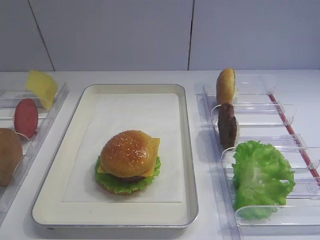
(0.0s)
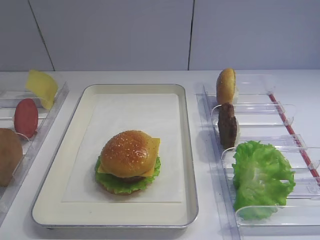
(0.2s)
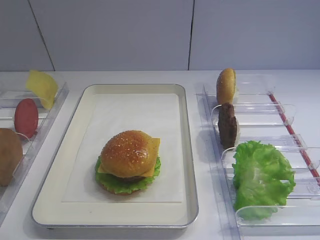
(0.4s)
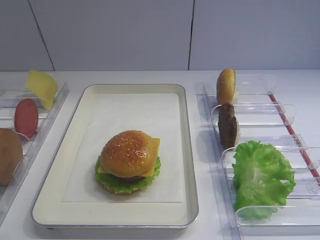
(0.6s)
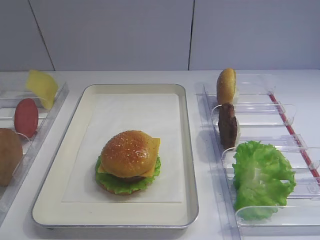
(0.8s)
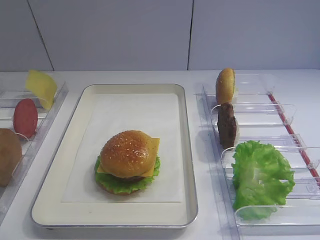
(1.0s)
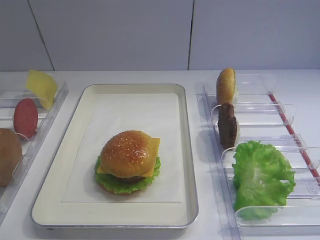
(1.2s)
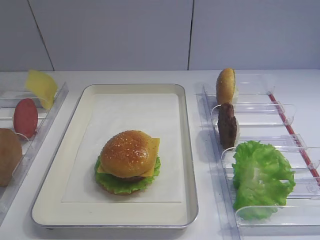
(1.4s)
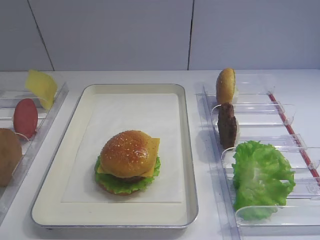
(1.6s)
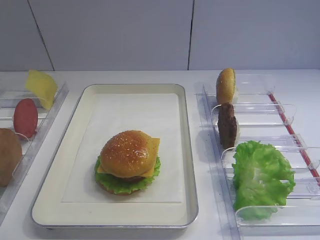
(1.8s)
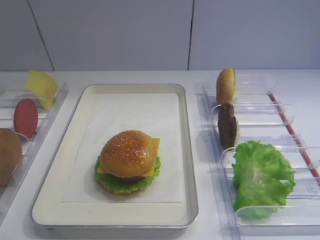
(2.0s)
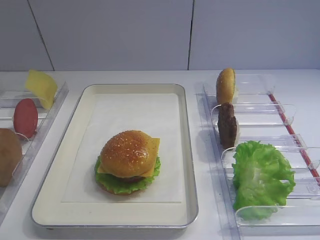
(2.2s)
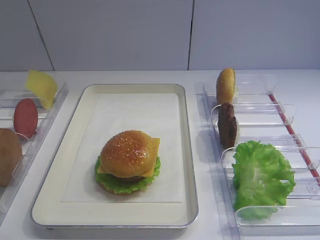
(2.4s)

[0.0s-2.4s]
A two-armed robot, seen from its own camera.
0.0s to 2.4s: The two grippers keep their place.

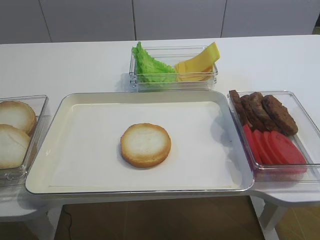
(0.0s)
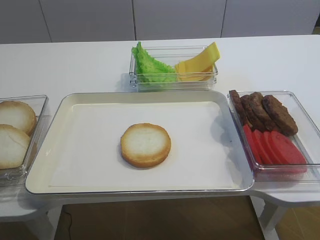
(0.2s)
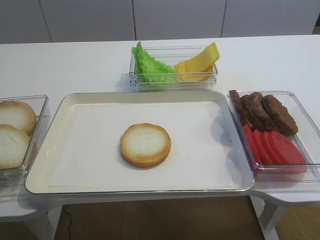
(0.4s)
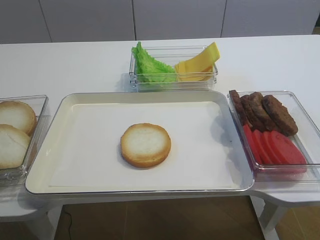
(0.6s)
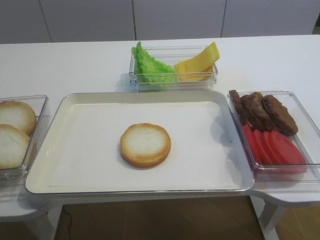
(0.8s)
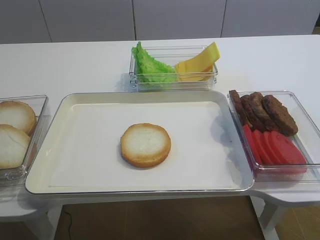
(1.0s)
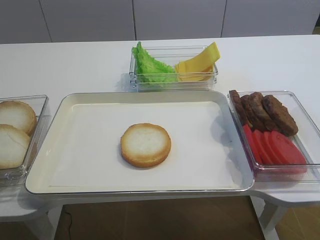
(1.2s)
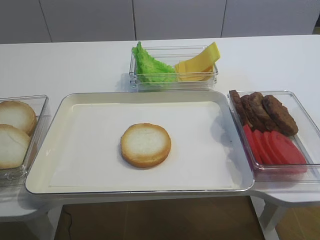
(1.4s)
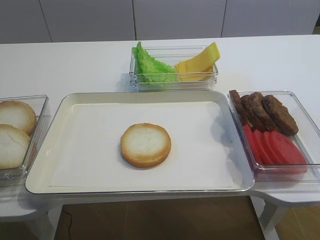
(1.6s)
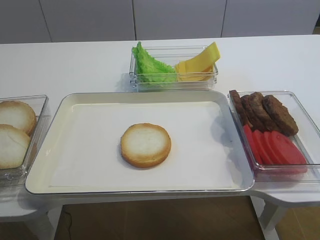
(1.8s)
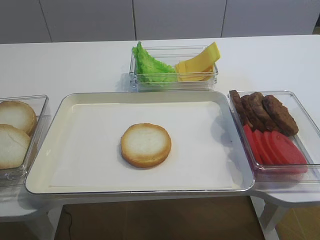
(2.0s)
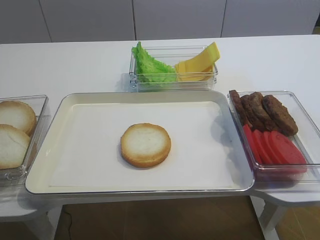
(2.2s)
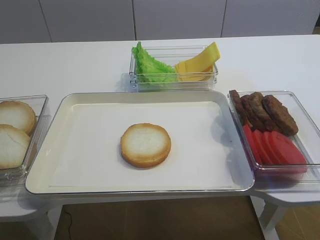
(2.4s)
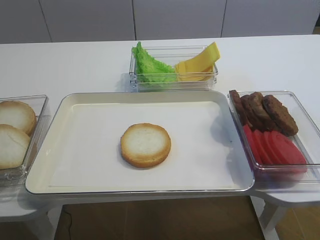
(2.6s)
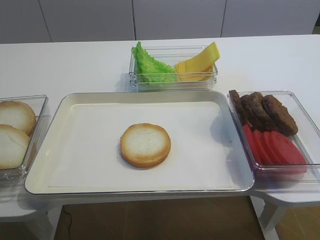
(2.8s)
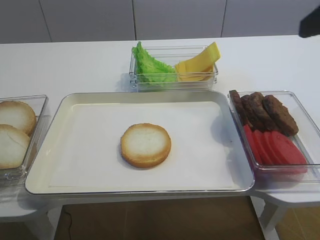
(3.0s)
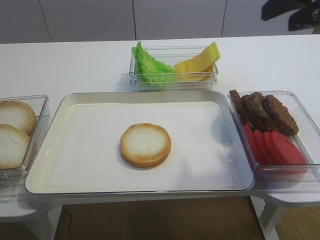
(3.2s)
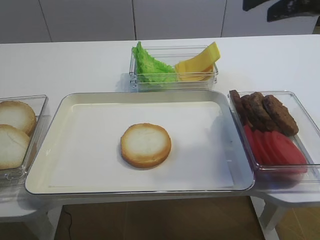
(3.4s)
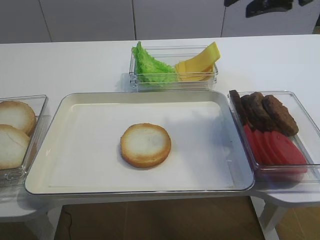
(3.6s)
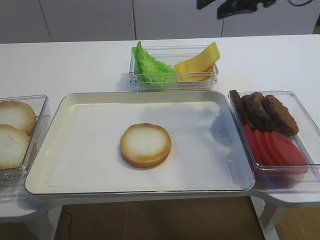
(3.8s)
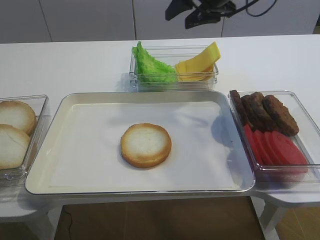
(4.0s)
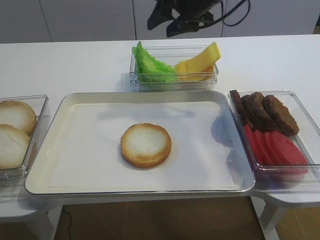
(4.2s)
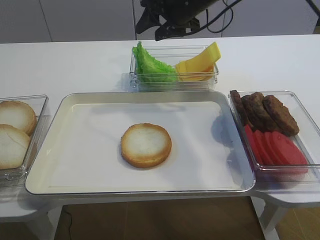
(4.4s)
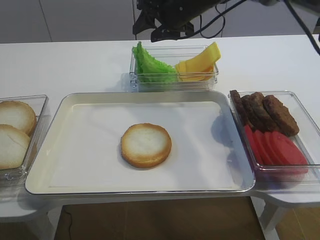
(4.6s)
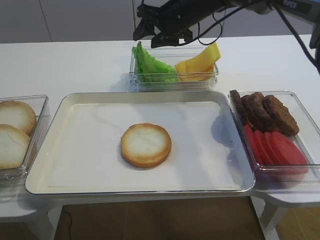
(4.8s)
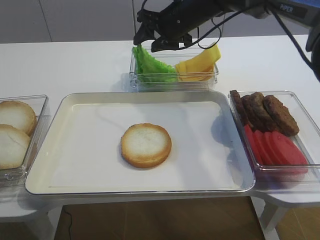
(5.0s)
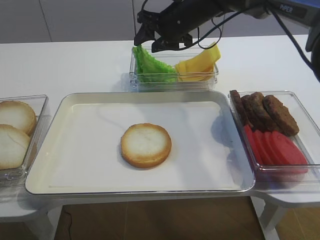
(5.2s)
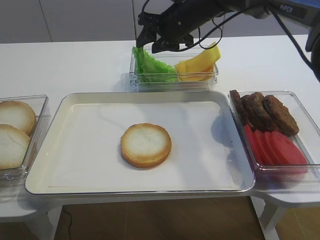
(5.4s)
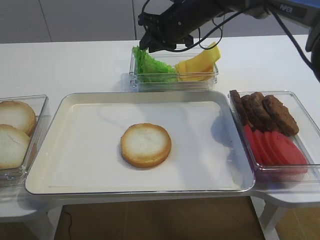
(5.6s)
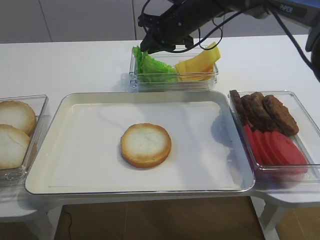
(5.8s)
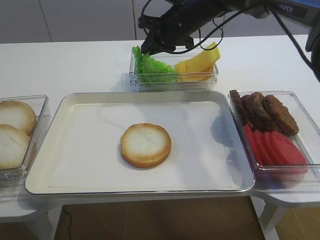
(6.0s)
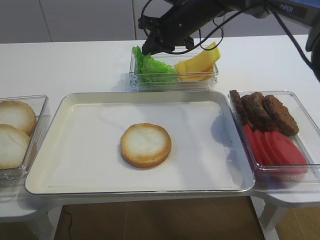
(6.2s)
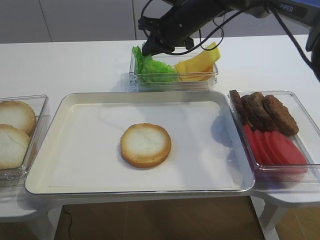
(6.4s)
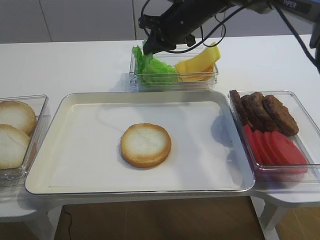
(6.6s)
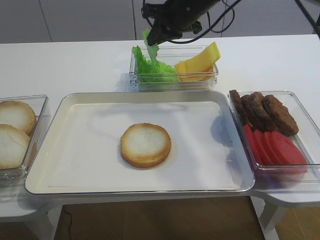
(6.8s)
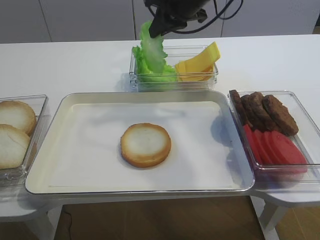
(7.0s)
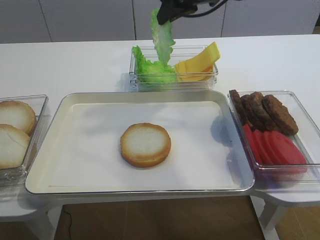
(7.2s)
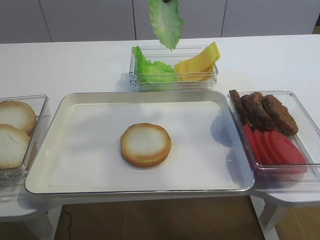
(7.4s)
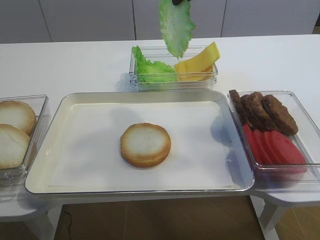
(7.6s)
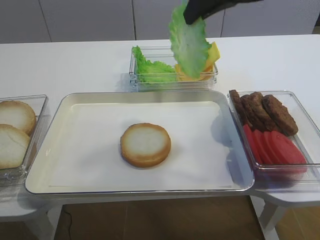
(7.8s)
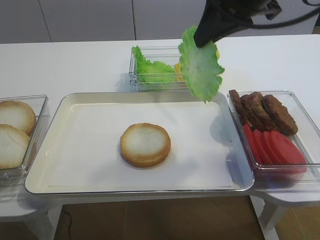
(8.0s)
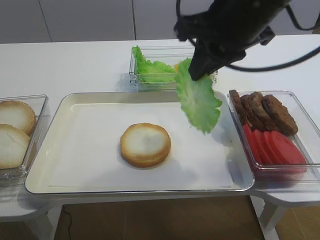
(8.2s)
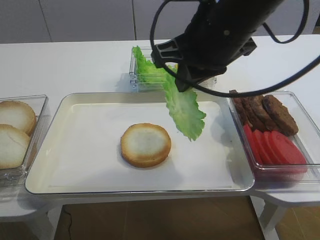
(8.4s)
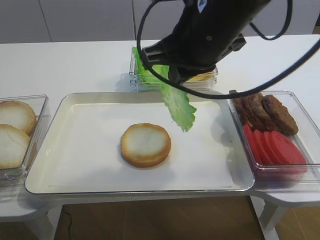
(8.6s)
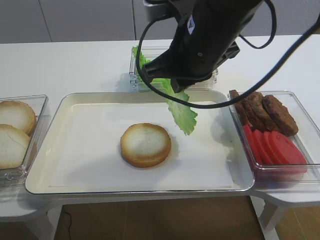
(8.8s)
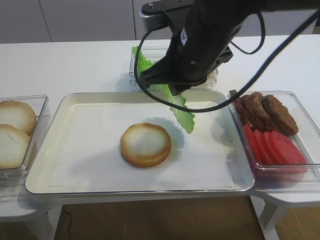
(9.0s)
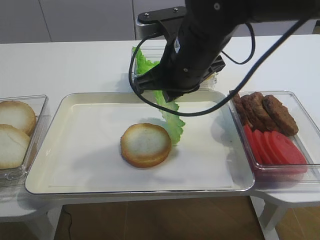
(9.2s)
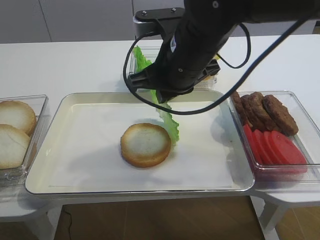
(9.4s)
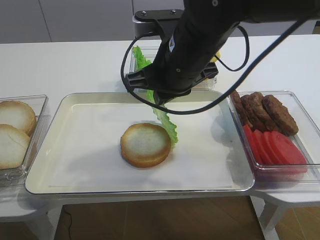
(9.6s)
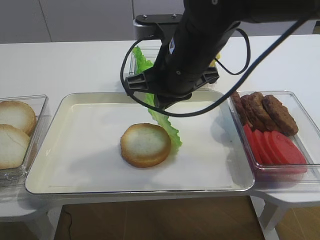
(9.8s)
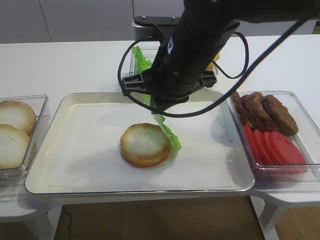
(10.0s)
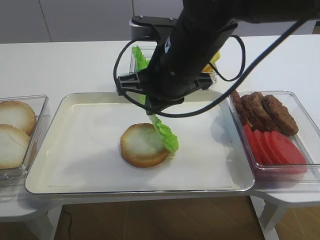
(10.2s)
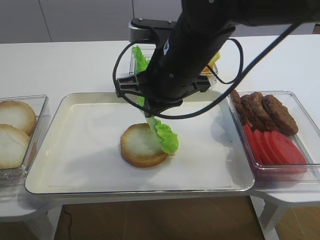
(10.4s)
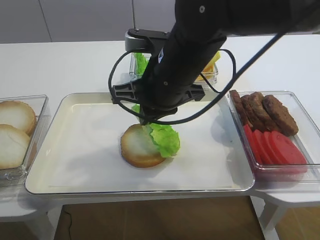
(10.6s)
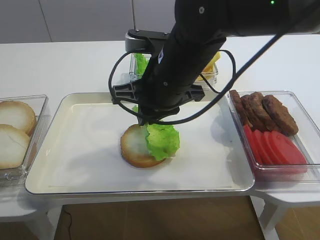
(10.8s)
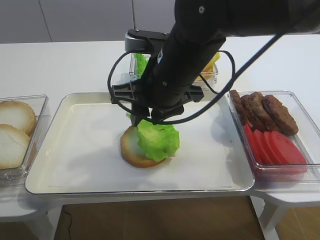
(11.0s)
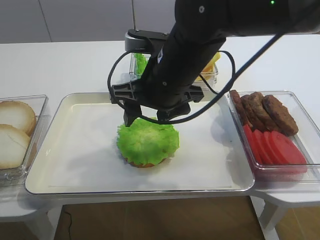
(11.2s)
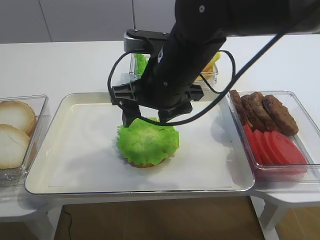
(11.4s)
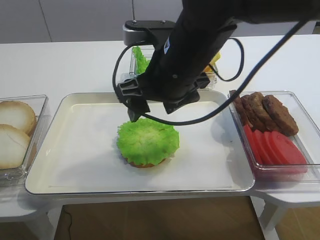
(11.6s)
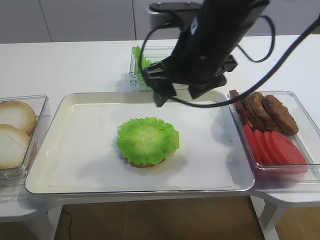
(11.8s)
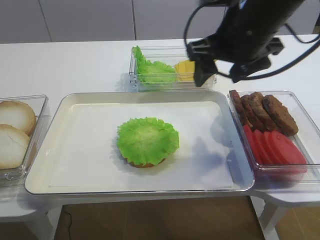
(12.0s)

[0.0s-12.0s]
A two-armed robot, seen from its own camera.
Step, 0.0s to 6.8s: Pick up the lettuce leaf with the right gripper.
Step, 7.0s to 11.0s: Place the lettuce leaf on the bread slice with the right gripper.
1.6s to 3.0s: The right gripper moves forward and upward, roughly 20 cm.
3.0s to 4.4s: The right gripper shifts about 35 cm forward and to the left.
4.4s to 6.0s: The right gripper shifts by about 5 cm, and closes its fingers.
6.0s to 7.6s: The right gripper is displaced upward and backward by roughly 20 cm.
7.6s to 9.0s: The right gripper travels downward and backward by approximately 15 cm.
9.0s to 10.4s: The grippers move only a little.
10.4s to 12.0s: The right gripper is displaced to the right by approximately 5 cm, and opens up.

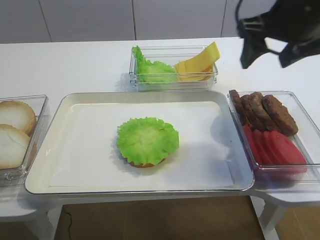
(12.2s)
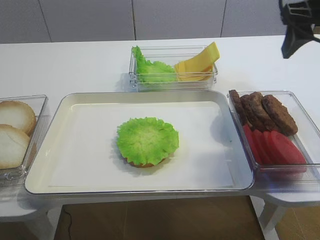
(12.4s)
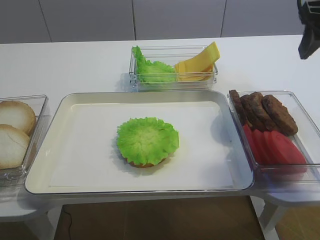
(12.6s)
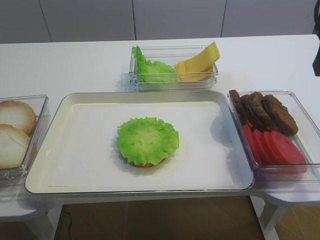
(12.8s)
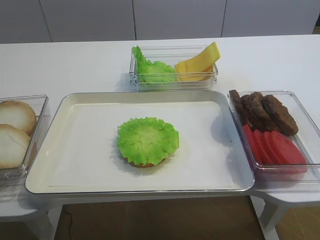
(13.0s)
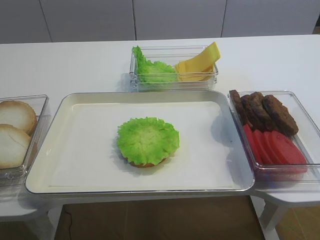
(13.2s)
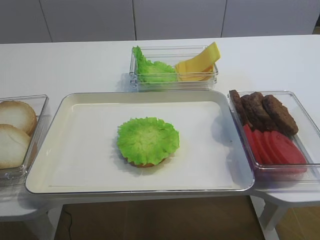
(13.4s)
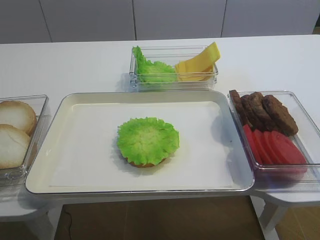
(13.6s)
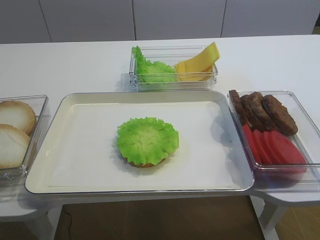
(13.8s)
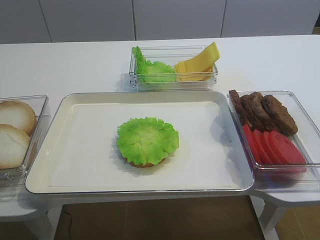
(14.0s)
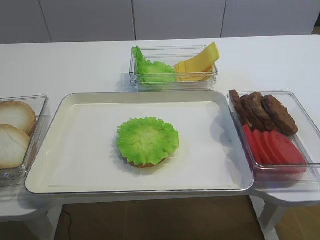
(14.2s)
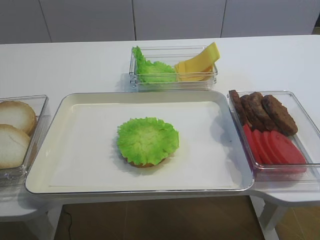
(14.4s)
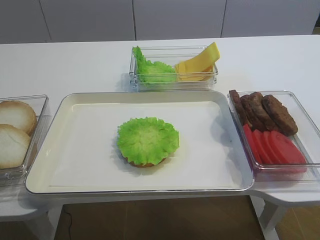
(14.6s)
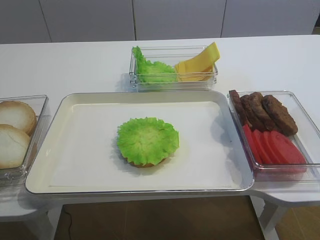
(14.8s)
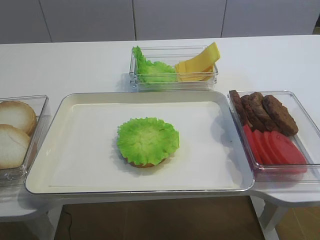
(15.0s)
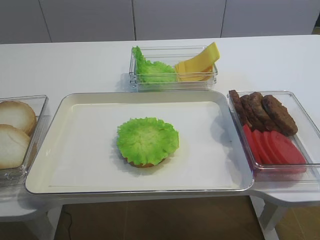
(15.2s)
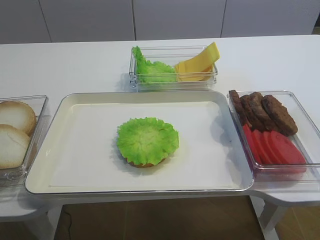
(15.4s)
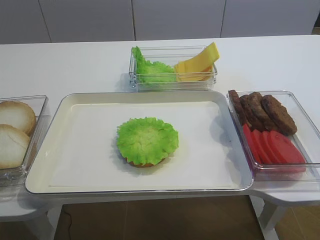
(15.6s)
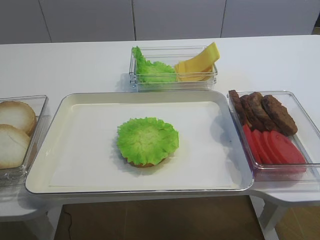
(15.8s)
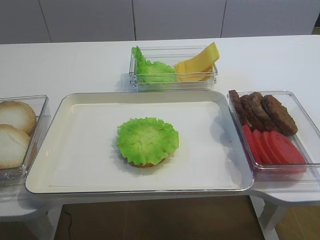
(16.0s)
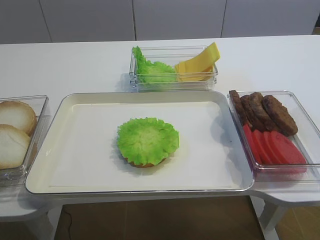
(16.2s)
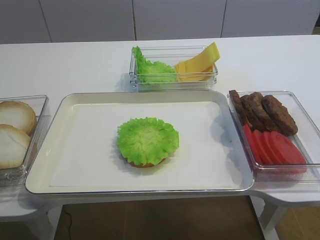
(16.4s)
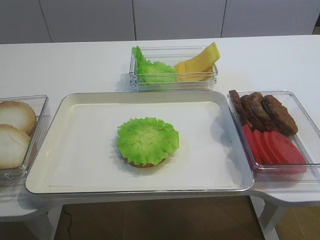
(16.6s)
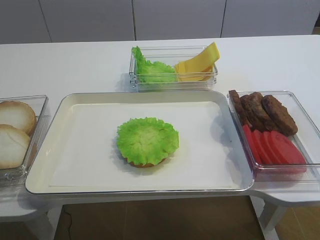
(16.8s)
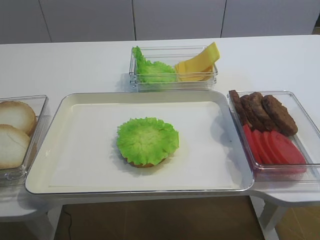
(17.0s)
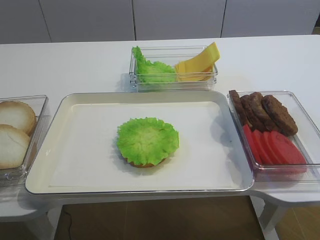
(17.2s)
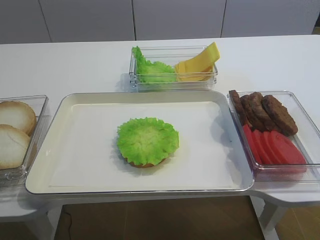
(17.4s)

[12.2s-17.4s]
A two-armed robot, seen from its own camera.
12.2s to 14.0s: The right gripper moves backward and to the right, about 30 cm.
14.0s to 15.6s: The right gripper is displaced downward by approximately 5 cm.

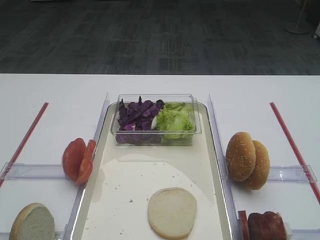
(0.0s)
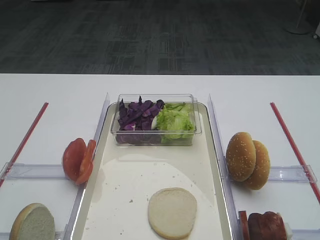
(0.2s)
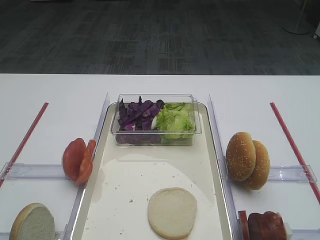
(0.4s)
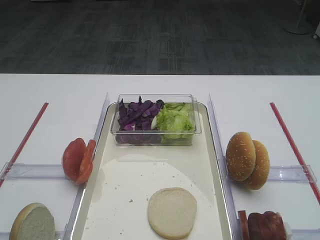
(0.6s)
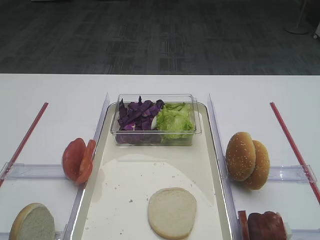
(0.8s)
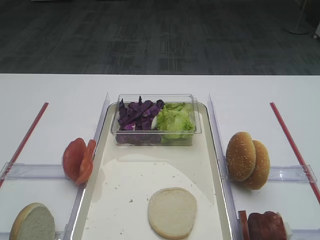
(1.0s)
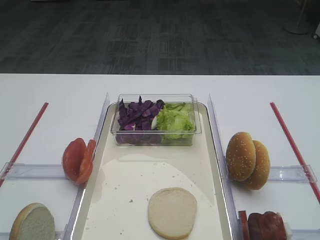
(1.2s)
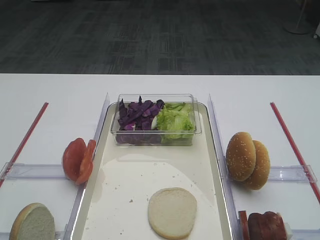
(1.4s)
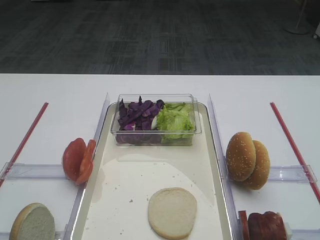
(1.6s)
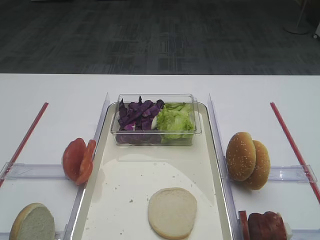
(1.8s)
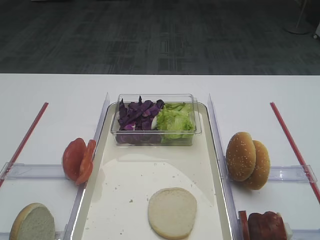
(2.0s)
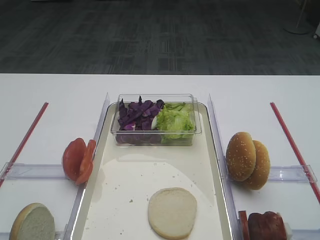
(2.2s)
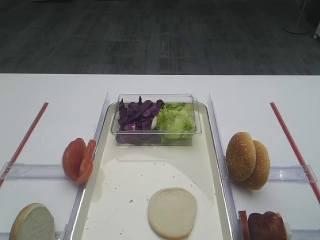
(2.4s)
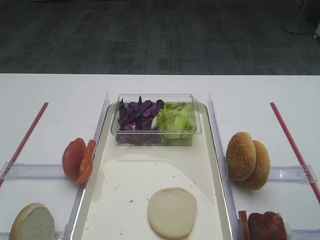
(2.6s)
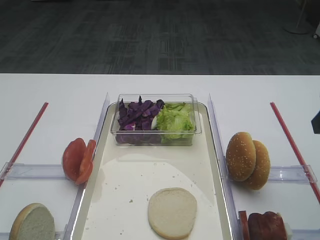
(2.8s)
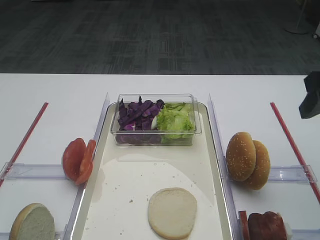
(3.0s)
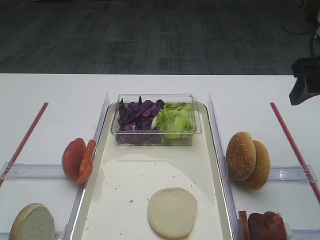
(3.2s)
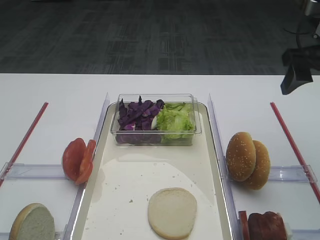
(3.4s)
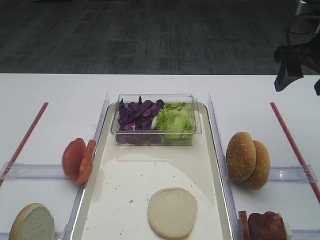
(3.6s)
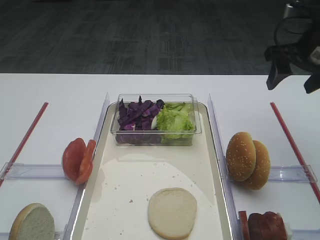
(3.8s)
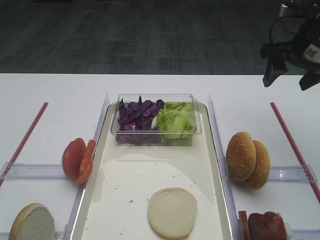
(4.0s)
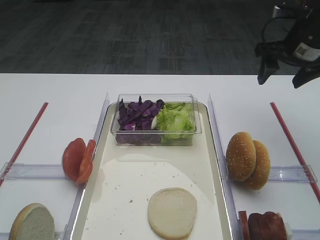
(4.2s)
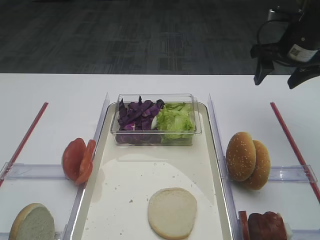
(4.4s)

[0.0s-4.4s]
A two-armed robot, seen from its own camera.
1.4s to 3.0s: The right gripper travels forward by roughly 25 cm.
3.0s to 4.4s: The right gripper shifts approximately 20 cm forward.
